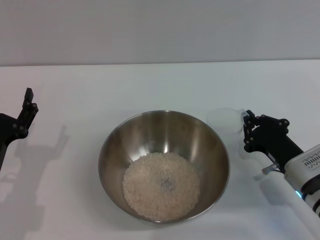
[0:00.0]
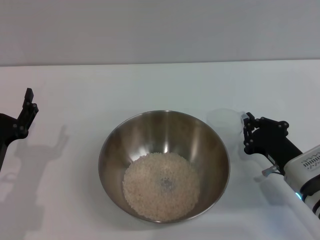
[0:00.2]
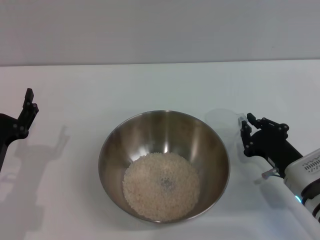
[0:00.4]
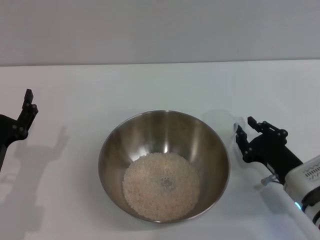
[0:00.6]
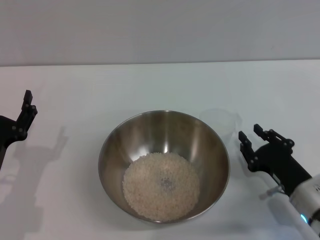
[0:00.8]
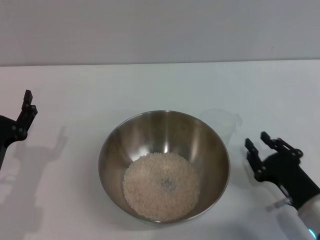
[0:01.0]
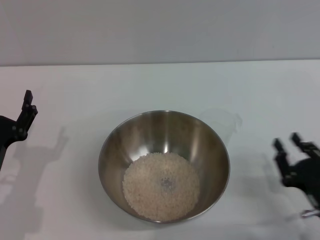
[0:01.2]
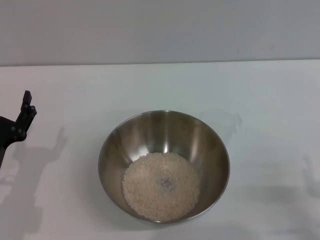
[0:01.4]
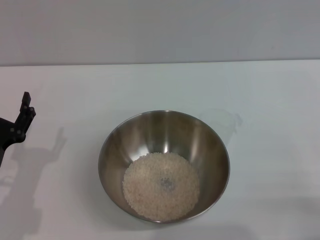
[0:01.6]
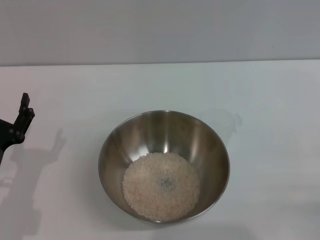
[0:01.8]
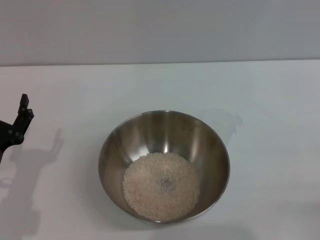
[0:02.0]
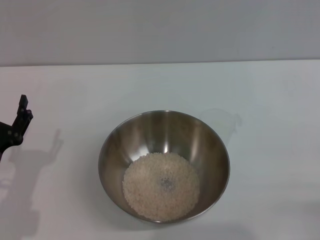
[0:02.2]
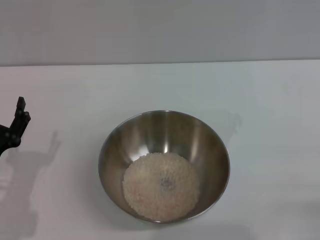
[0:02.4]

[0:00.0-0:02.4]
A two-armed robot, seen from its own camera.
Task of the whole recording: Place the bowl in the middle of the table with one hand and pour the rice from the grain cup into it with the other hand.
0:00.0 to 0:01.2: The right gripper heads backward, covering roughly 10 cm, and opens its fingers.
0:01.2 to 0:02.4: The right gripper moves to the right and backward, roughly 10 cm, and opens its fingers.

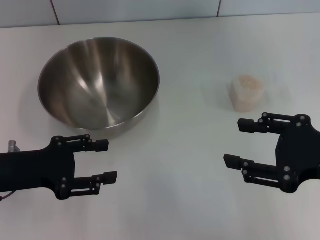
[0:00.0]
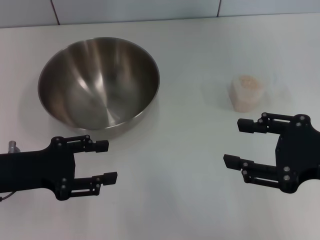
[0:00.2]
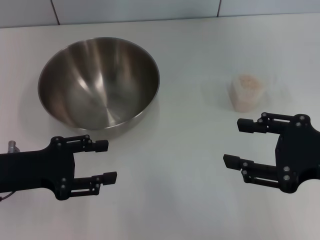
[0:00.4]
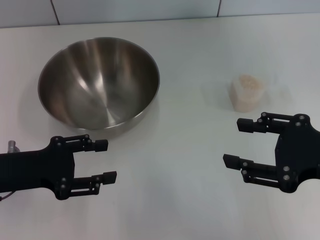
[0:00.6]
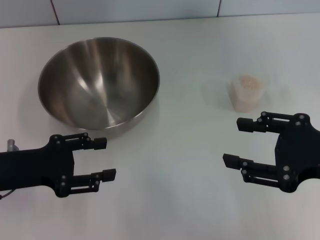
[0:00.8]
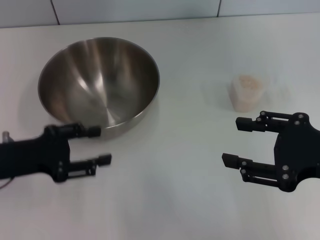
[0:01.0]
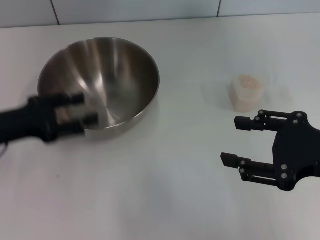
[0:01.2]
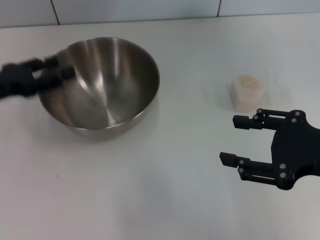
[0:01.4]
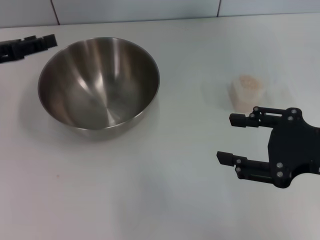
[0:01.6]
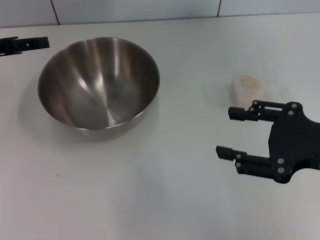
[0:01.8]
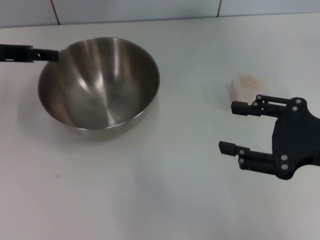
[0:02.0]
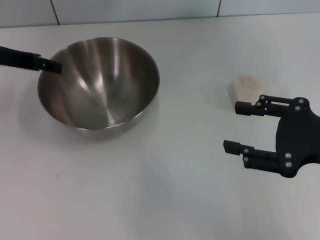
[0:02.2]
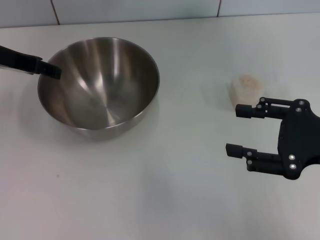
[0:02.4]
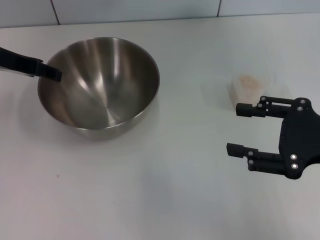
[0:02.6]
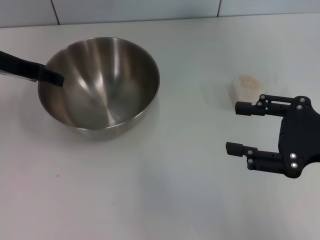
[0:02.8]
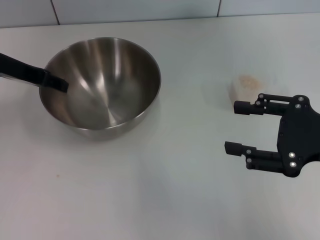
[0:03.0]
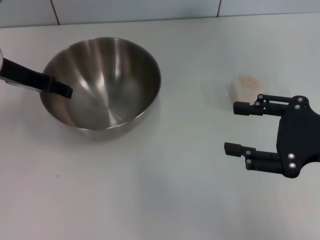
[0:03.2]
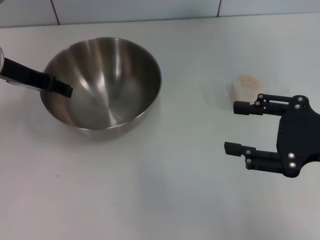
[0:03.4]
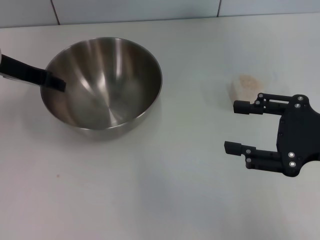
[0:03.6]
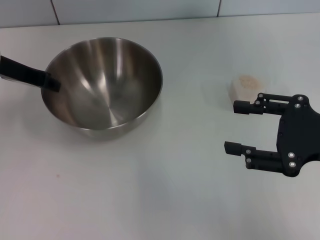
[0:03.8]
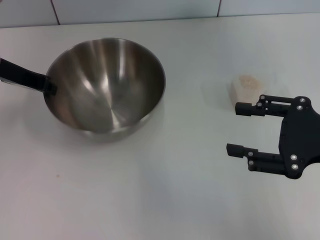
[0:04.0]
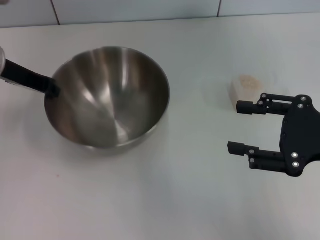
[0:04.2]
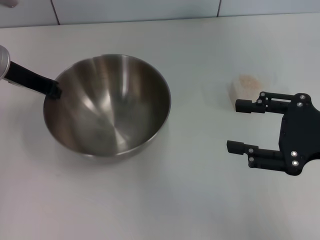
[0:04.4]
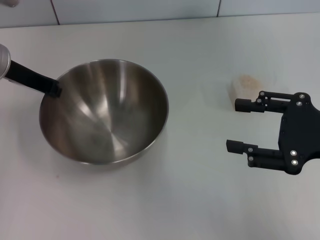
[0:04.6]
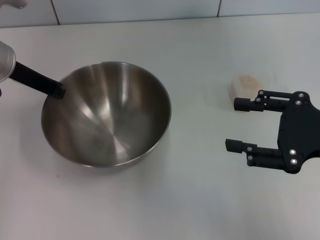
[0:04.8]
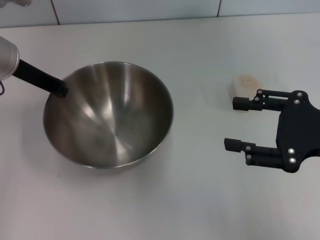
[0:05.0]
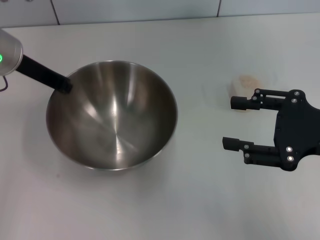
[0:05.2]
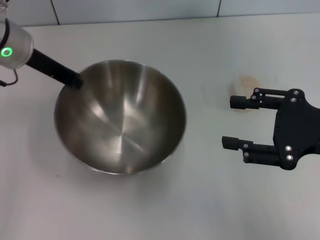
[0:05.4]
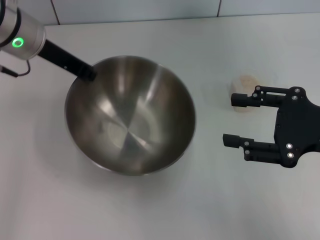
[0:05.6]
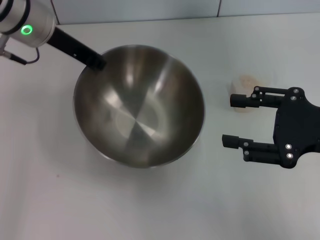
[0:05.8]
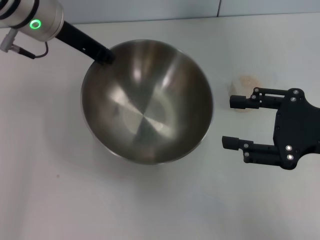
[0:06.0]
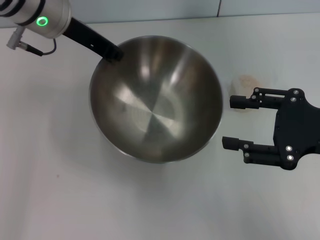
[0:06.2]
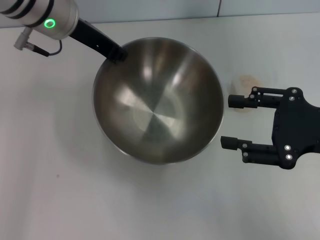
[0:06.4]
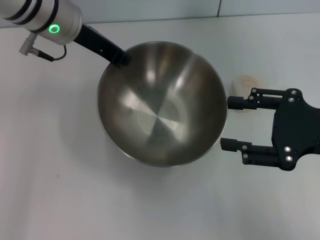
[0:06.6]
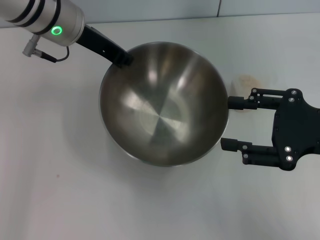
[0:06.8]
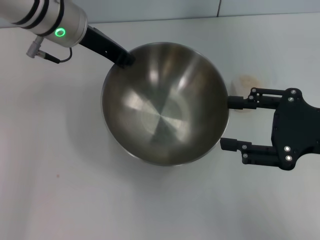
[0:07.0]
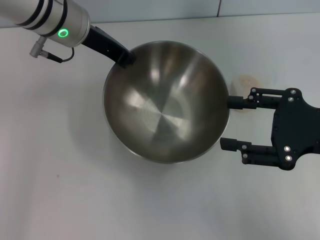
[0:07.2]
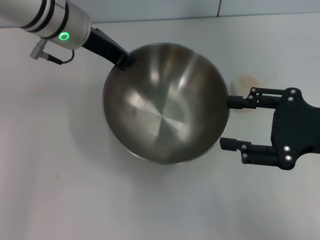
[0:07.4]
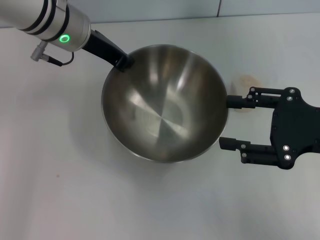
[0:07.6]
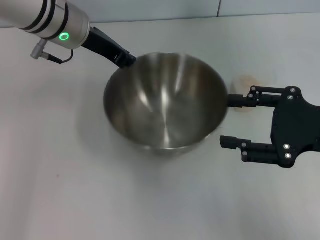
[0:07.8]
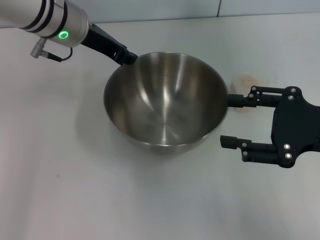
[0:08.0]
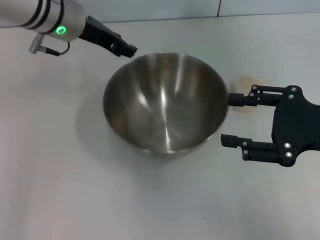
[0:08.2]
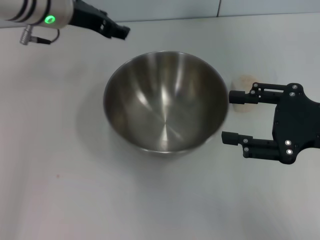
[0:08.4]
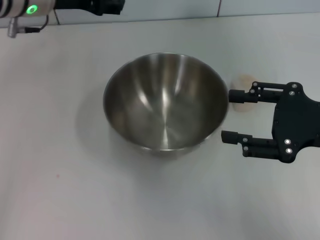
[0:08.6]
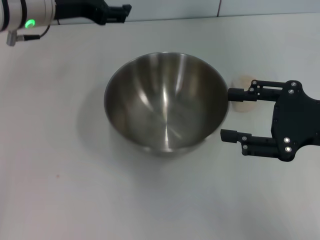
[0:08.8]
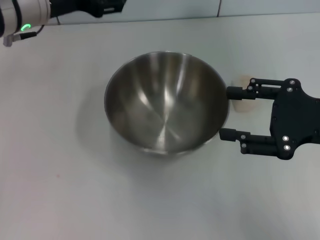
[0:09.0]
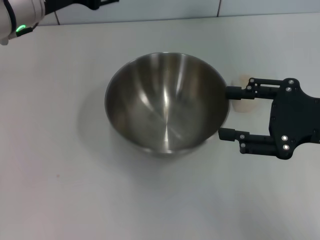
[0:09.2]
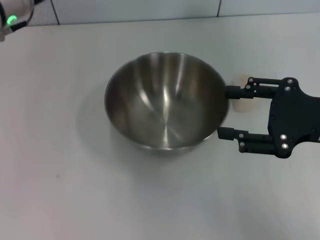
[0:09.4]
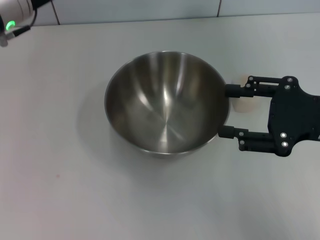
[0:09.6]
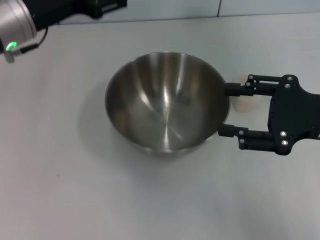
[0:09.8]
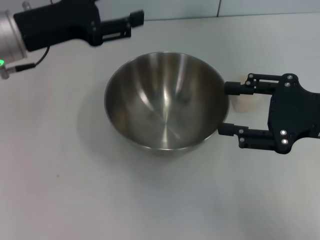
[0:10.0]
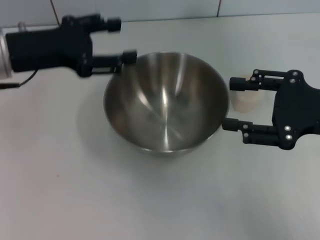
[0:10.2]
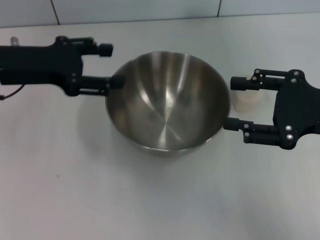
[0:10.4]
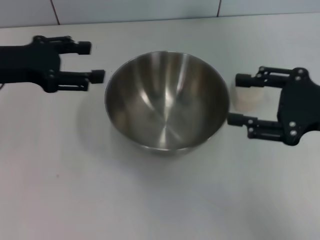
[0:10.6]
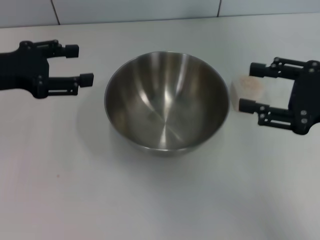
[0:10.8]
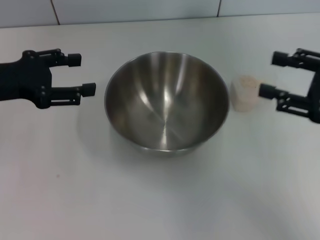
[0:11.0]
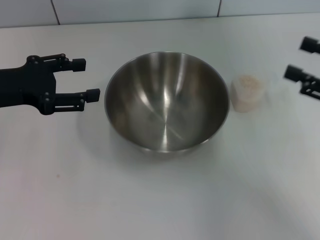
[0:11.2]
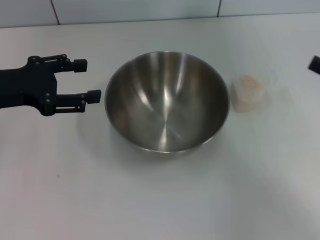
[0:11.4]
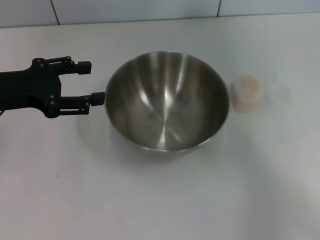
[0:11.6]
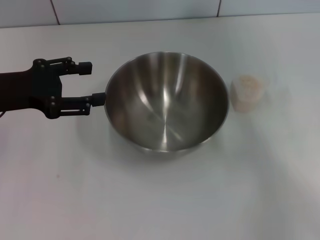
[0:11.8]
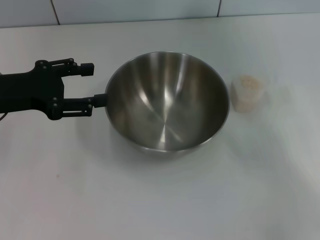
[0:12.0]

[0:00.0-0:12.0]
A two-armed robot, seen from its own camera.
Task of the whole recording: Place the bowl in the middle of the table with one hand and pour the rice from the grain cup into it with the other hand.
Step, 0:00.0 to 0:05.4: Pick up the bowl with the left gripper.
Step, 0:05.6 to 0:08.8: Place the bowl in the center of view with the left gripper.
0:00.0 to 0:01.6: The left gripper moves forward and upward, some 10 cm.
0:01.6 to 0:03.0: The left gripper shifts some 5 cm to the right.
0:03.0 to 0:04.4: The left gripper closes its fingers.
0:04.4 to 0:06.0: The left gripper heads to the right, covering some 10 cm.
0:07.6 to 0:09.0: The left gripper changes place by roughly 5 cm, and opens.
0:09.0 to 0:10.4: The left gripper moves to the left, some 5 cm.
0:10.4 to 0:12.0: The right gripper is displaced to the right and downward by approximately 15 cm.

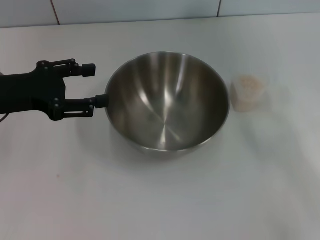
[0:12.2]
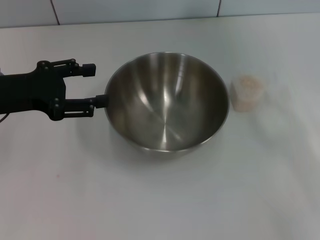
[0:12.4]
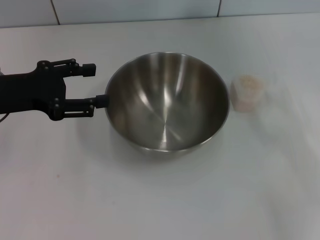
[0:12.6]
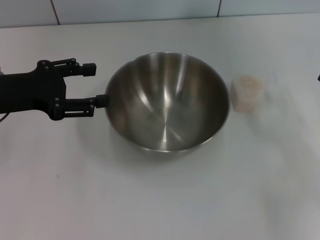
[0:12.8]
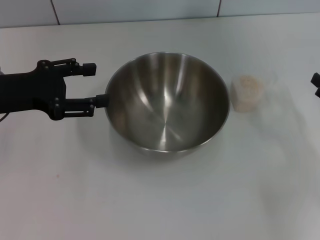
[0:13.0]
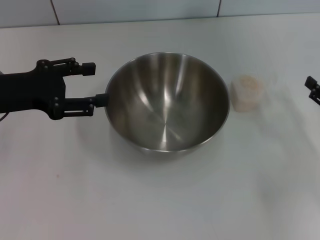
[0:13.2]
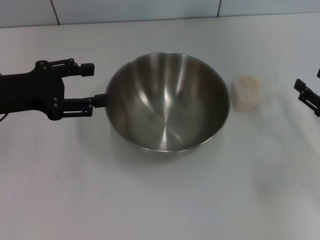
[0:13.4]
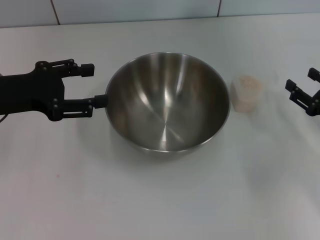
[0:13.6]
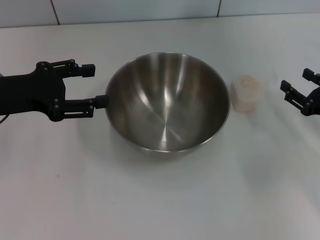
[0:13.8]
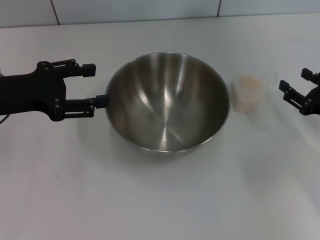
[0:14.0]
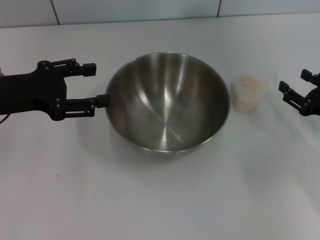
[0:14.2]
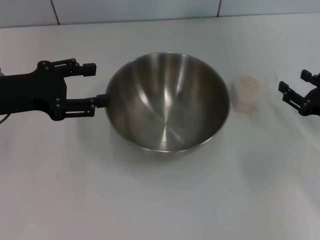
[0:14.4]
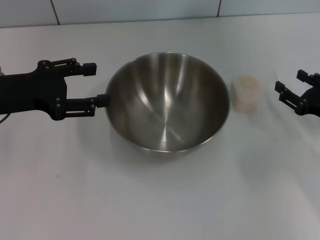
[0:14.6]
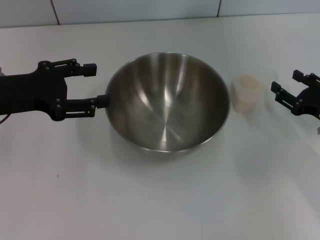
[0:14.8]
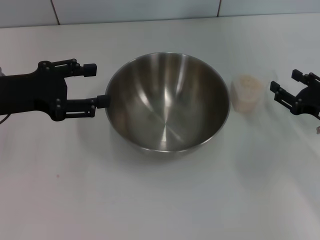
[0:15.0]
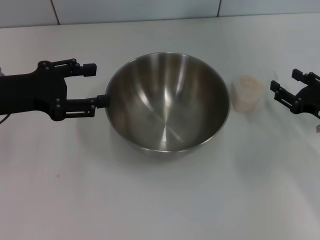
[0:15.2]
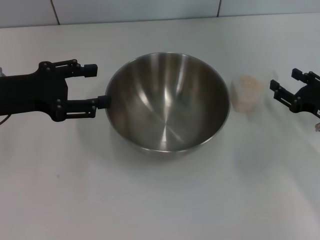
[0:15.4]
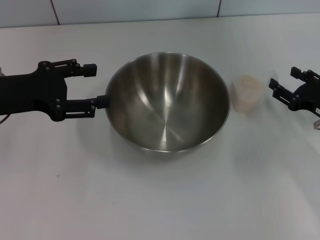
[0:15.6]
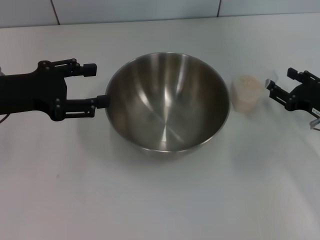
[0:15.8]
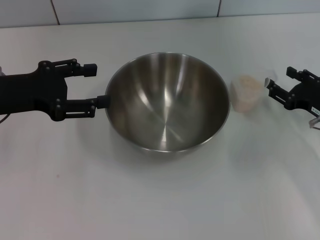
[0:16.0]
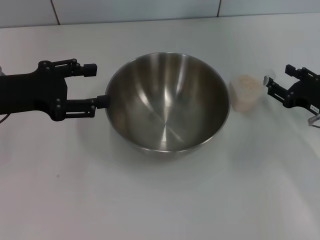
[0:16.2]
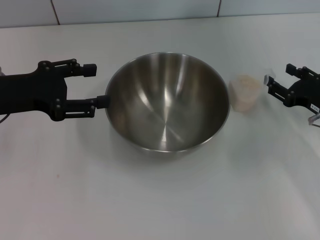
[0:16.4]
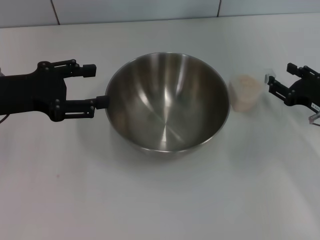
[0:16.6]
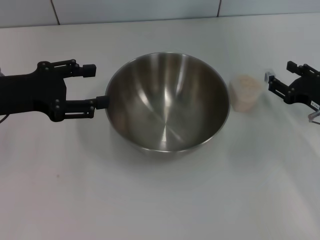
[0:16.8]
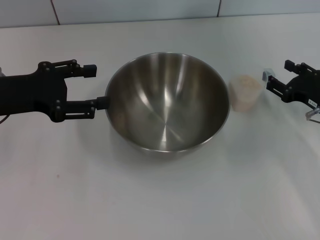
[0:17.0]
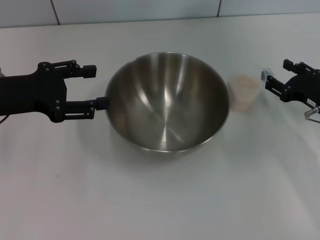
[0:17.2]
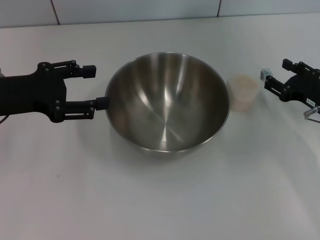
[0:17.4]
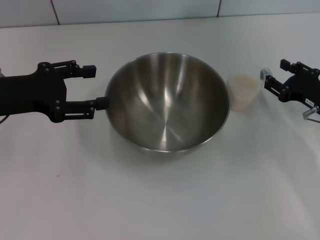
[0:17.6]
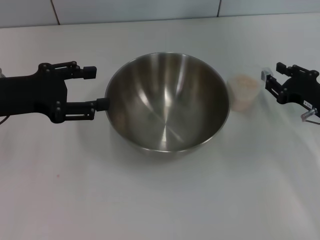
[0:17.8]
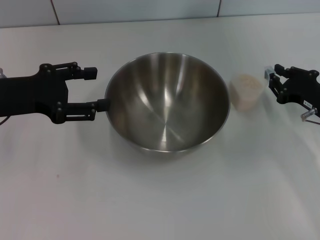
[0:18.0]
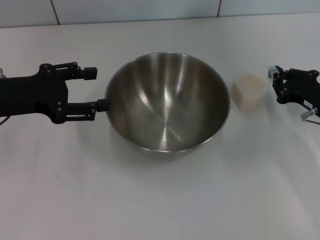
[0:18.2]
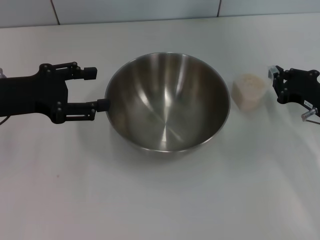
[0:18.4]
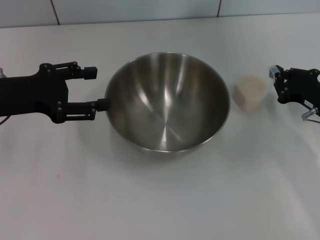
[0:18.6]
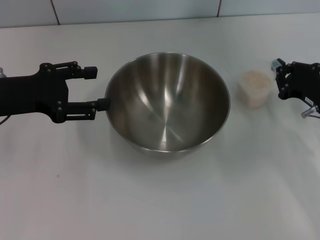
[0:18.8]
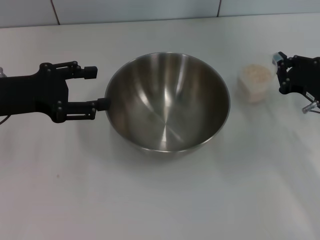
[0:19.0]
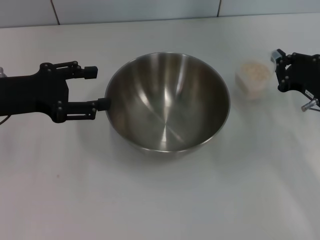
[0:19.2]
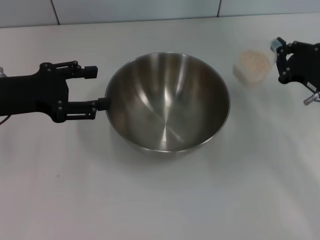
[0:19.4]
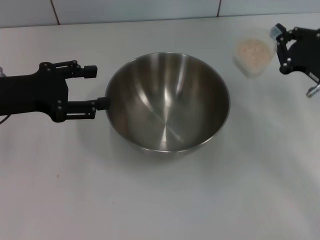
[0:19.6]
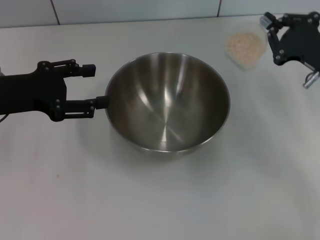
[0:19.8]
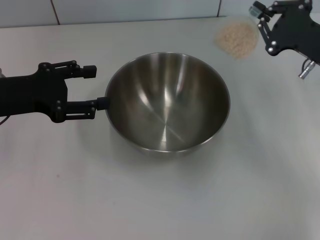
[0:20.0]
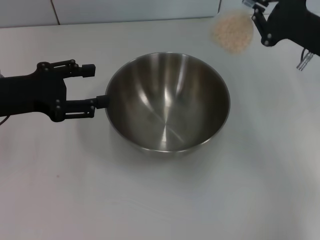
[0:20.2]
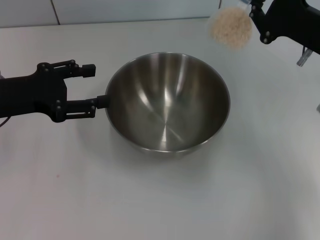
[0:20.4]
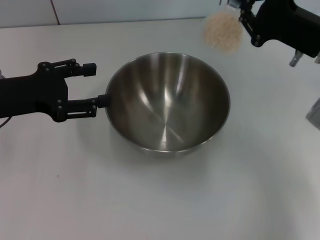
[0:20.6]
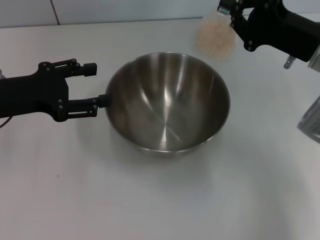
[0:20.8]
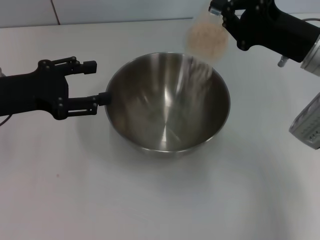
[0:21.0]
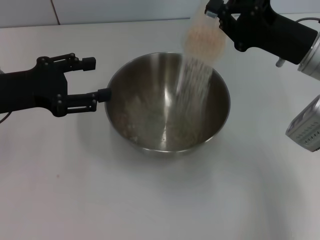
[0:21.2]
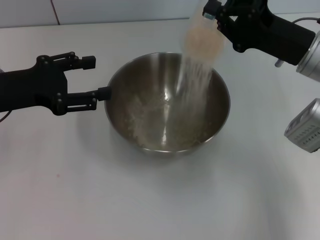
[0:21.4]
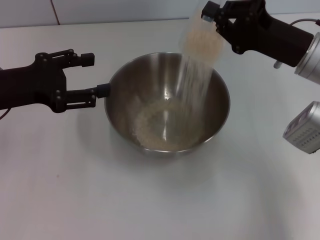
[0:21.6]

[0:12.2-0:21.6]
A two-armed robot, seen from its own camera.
Task of the whole recording: Place the bowl in the middle of the table with one hand and pour the rice from the grain cup into it with the other hand.
Step, 0:12.2 to 0:19.6: Pick up the cup with rice in it with the right gripper.
0:12.2 to 0:13.8: The right gripper heads forward, downward and to the left, covering about 10 cm.
0:13.8 to 0:17.0: There are only small adjustments of the grippers.
0:17.0 to 0:18.4: The right gripper closes its fingers.
0:18.4 to 0:20.0: The right gripper goes roughly 10 cm upward.
0:20.0 to 0:21.6: The right gripper shifts roughly 5 cm to the left.
